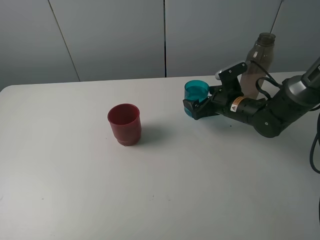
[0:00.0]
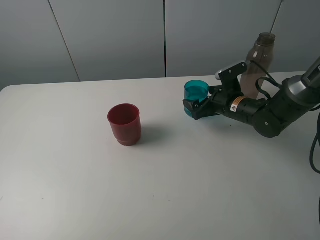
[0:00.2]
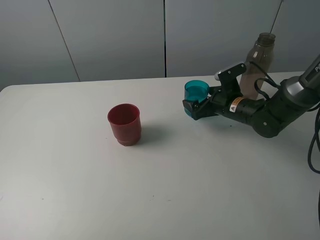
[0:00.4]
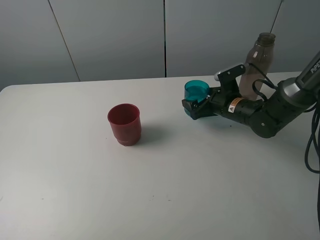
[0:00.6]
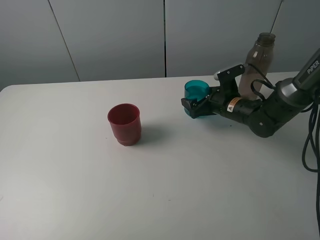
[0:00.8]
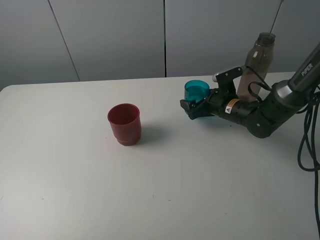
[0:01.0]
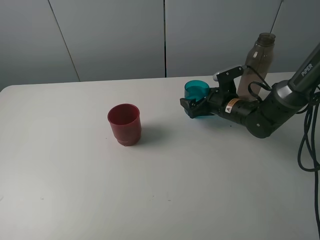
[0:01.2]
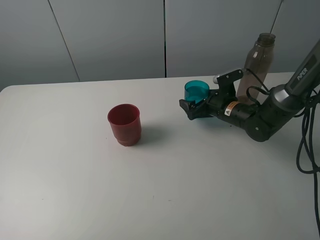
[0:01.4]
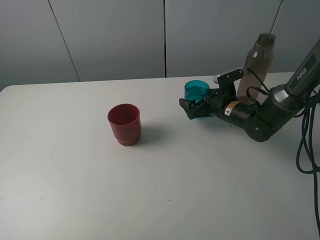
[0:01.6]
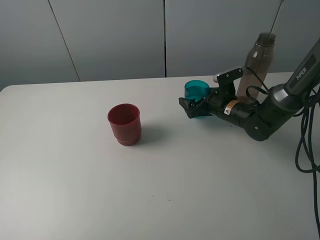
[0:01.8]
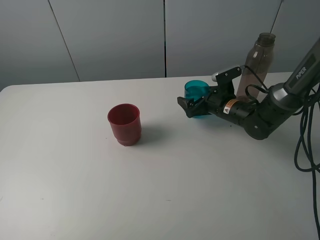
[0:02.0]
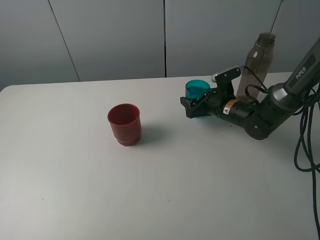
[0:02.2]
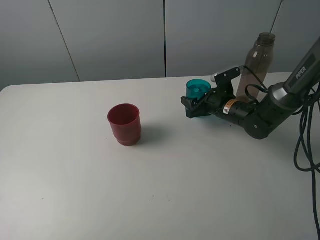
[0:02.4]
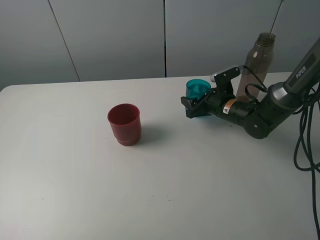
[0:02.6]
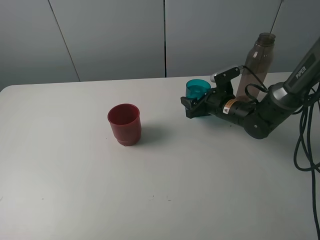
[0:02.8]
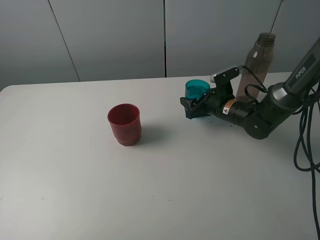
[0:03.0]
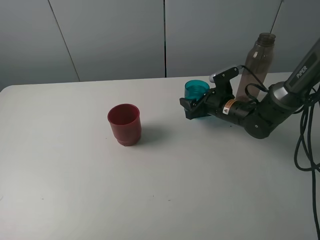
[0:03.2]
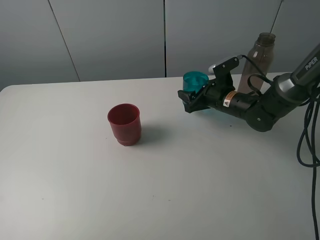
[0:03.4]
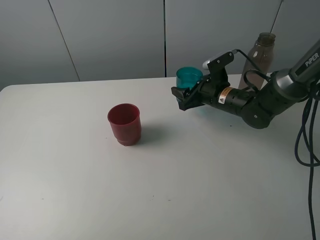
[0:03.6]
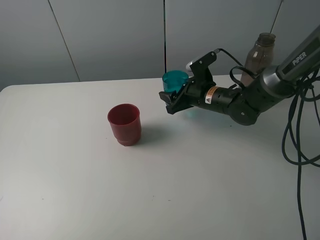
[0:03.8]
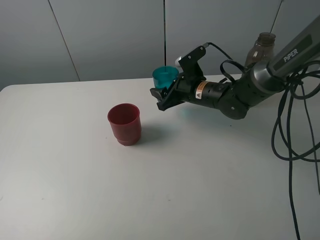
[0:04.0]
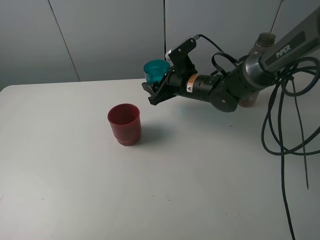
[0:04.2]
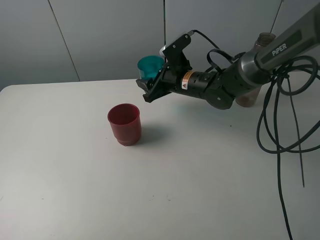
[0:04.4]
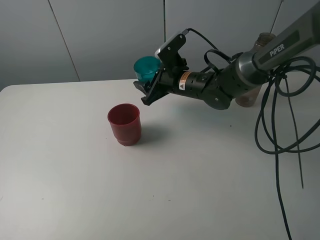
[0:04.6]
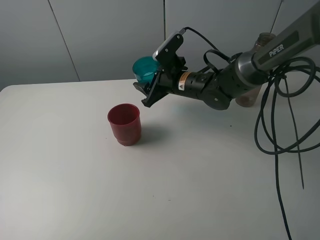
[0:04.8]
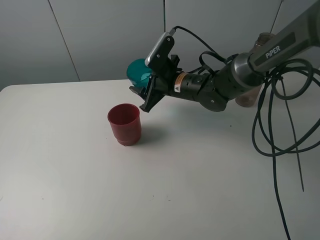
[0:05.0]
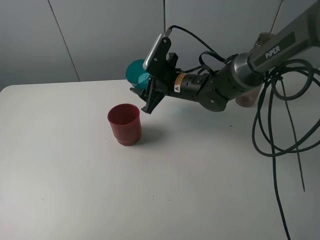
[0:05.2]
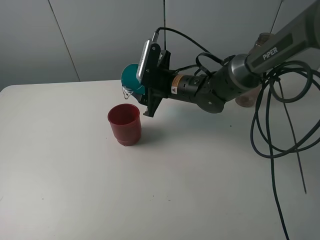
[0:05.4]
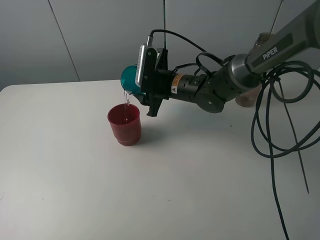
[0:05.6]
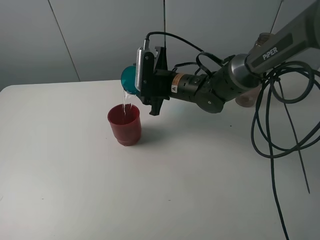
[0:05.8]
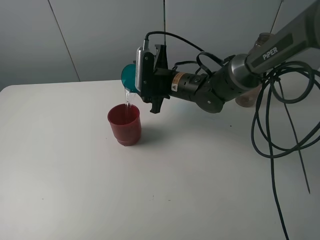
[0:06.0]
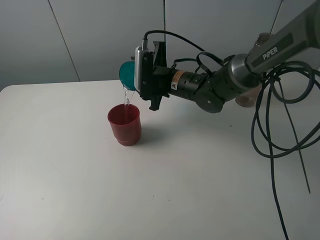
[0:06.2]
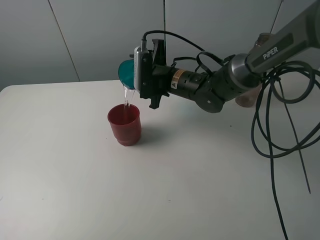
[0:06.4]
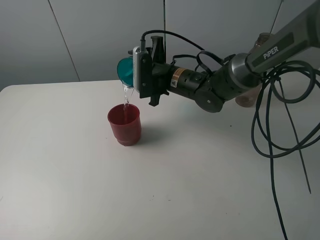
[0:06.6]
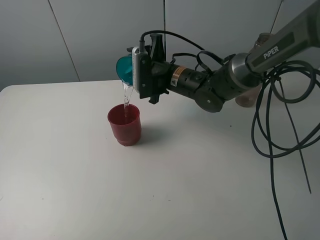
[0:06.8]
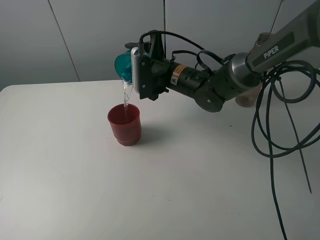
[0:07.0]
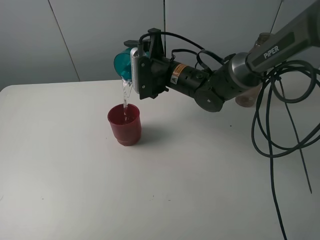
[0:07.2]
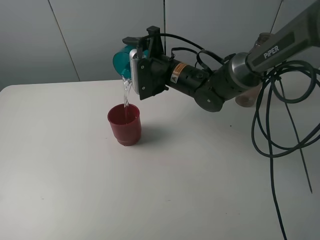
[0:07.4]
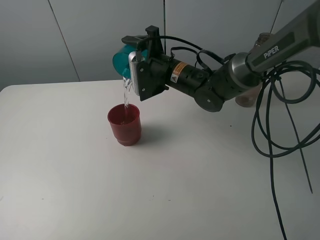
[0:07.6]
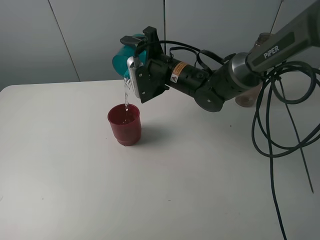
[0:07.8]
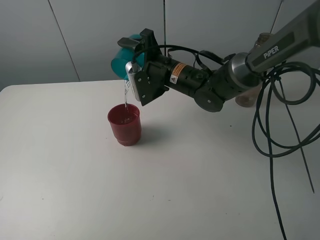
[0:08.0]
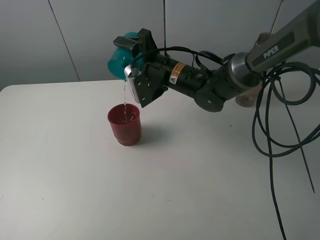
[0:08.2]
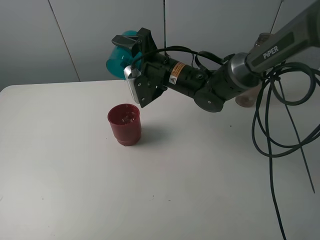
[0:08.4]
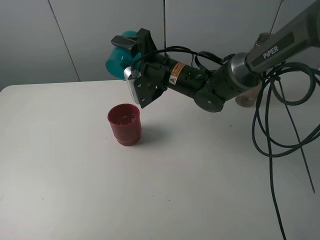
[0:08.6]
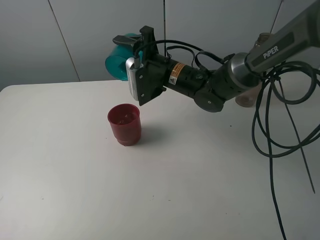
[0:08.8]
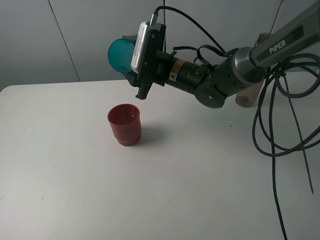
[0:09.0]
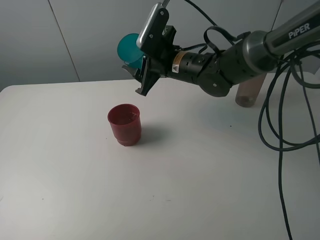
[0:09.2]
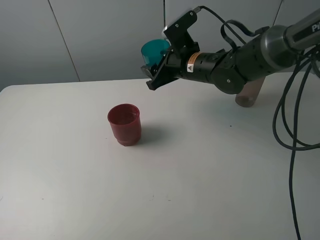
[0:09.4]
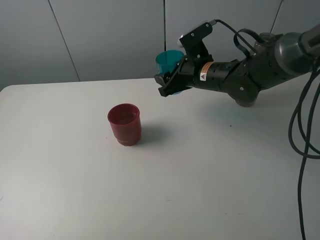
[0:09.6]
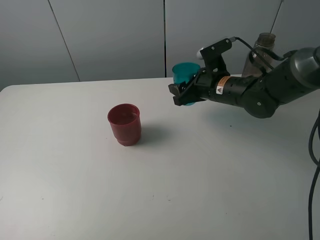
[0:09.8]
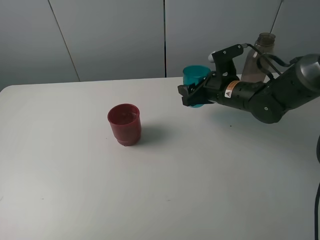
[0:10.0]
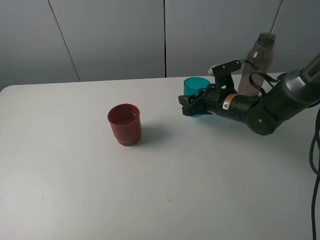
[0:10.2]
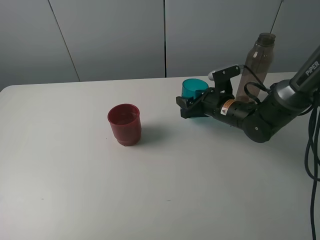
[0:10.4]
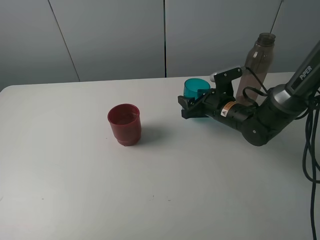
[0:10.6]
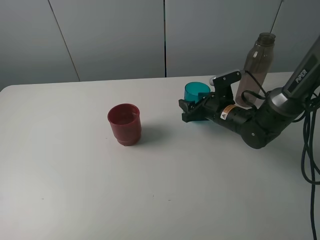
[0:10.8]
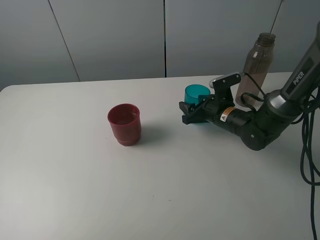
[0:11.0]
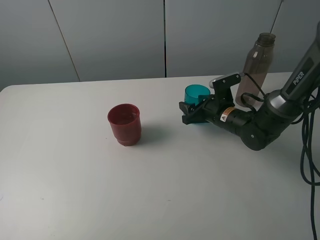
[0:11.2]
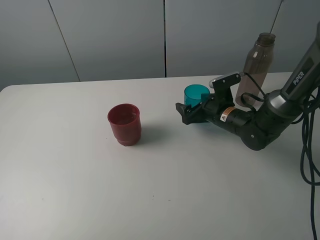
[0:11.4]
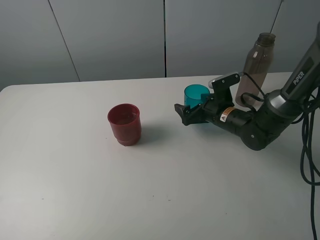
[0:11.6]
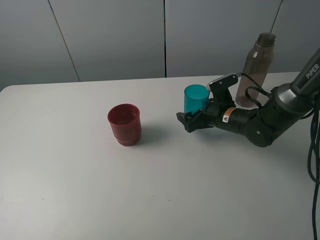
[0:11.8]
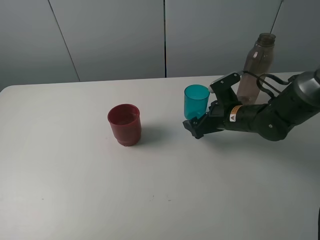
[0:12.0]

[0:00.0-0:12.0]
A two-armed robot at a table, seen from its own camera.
Task of the whole recording: pick up the bottle and pour water into the cup, then pick up the cup containing water and pour it into another cup.
Step, 0:00.0 to 0:02.6: Grasp the blue cup with the right gripper.
Step, 0:02.8 to 0:08.4: Pour water from blue cup to red cup with the right gripper.
Step, 0:08.6 to 0:11.8: Place the blue cup with the right gripper.
0:00.0 to 0:01.6: The grippers make only small movements.
0:01.6 to 0:03.0: The right gripper closes its fingers.
0:03.0 to 0:04.4: The right gripper is displaced to the left and upward by about 15 cm.
0:09.0 to 0:10.4: The right gripper travels to the right and downward by approximately 15 cm.
0:10.4 to 0:12.0: The right gripper opens.

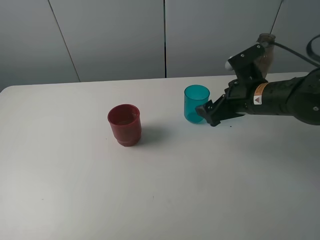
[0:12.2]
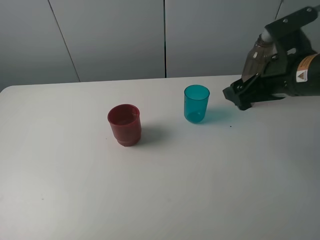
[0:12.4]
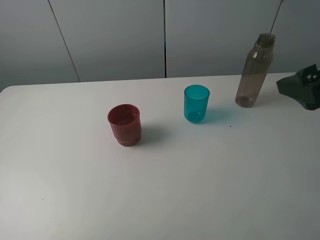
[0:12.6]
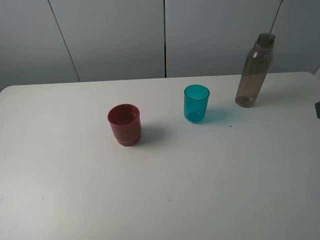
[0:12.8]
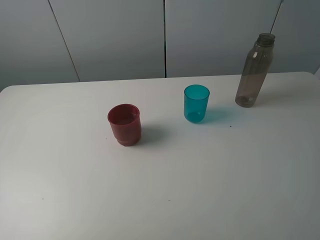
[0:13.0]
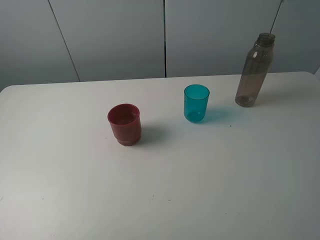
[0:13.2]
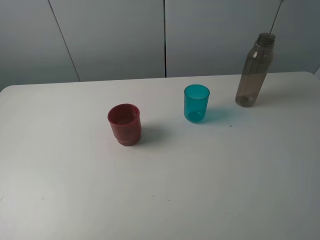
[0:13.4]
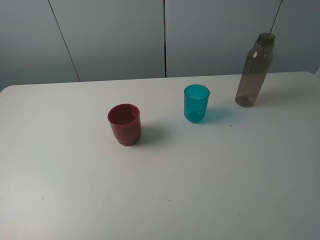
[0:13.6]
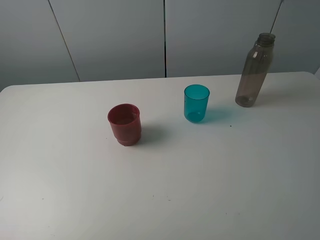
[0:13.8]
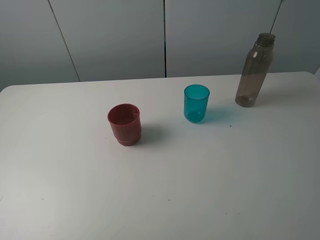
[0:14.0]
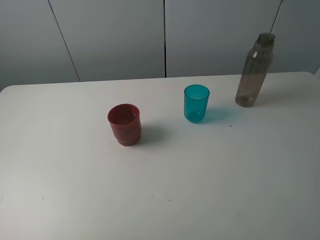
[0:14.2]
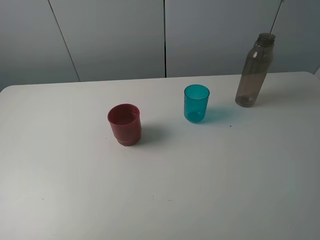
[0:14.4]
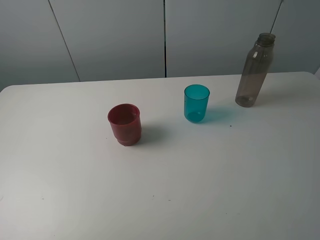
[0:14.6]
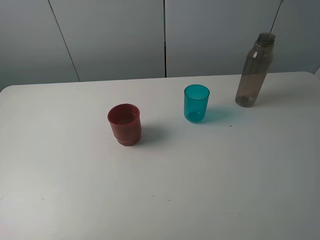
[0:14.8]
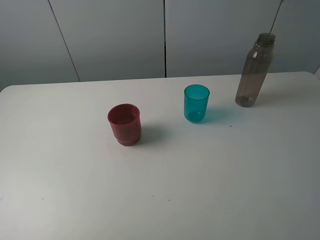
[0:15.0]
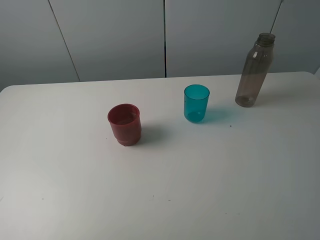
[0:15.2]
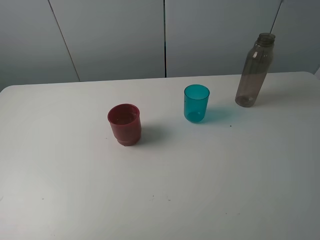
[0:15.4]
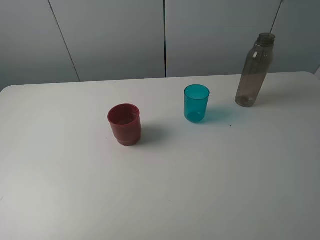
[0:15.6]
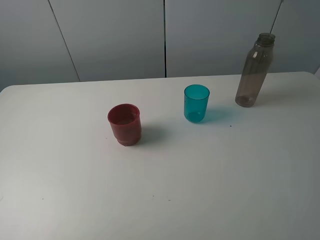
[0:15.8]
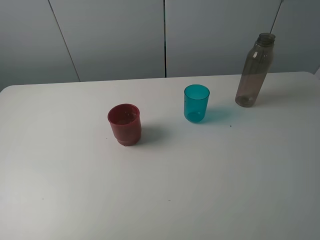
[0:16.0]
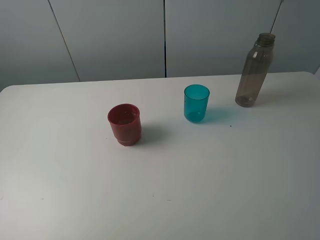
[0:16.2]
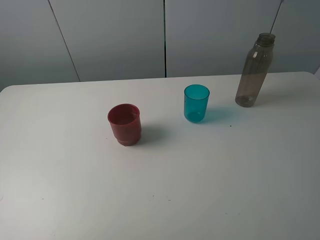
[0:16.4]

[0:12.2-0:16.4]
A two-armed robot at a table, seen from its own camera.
Task of the whole recording: pick up the bottle and pour water into the cup, then pick up the cup containing water and pour it into another cup.
0:12.2 to 0:13.6: The right gripper shifts some 30 cm backward and upward.
0:15.0 to 0:16.4: Both grippers stay about where they are.
